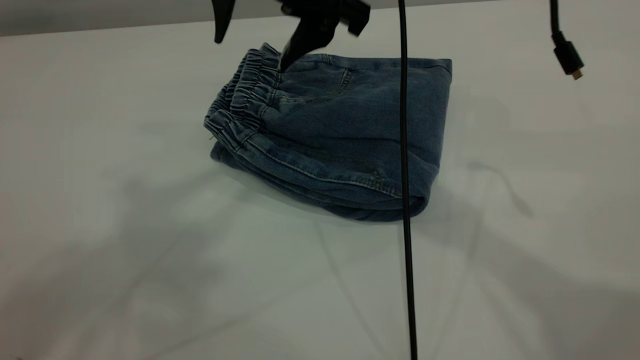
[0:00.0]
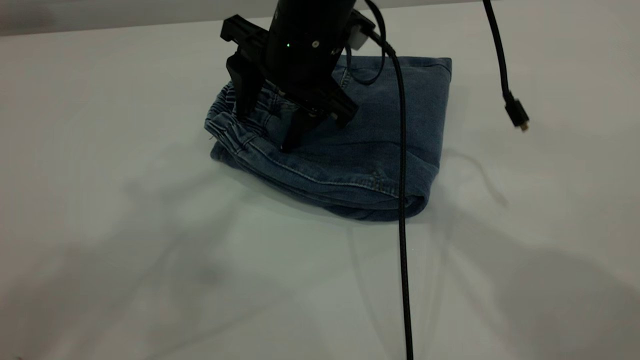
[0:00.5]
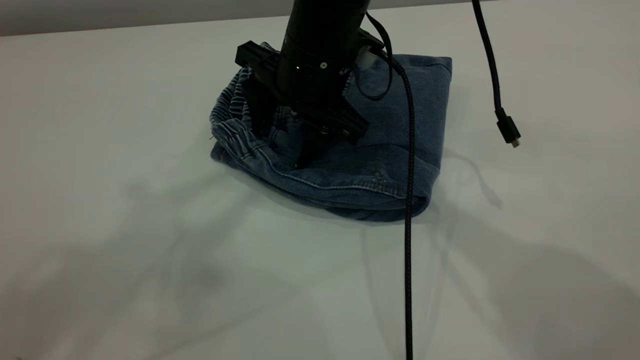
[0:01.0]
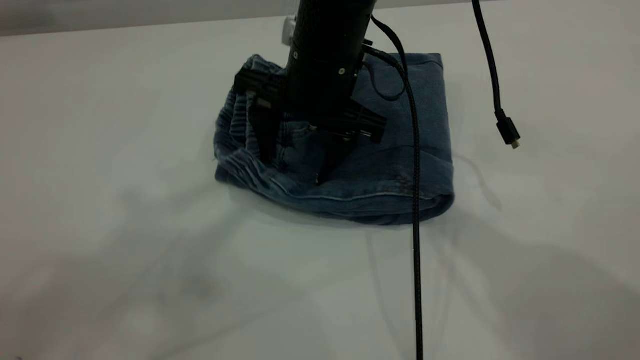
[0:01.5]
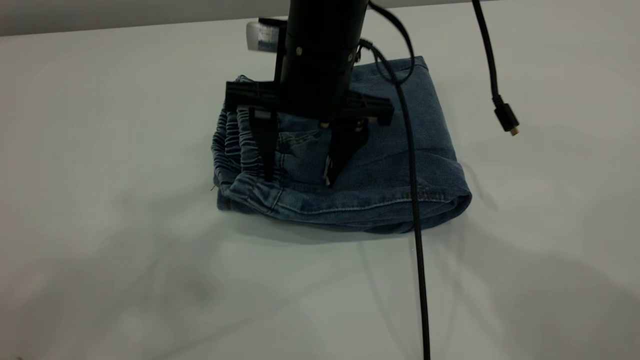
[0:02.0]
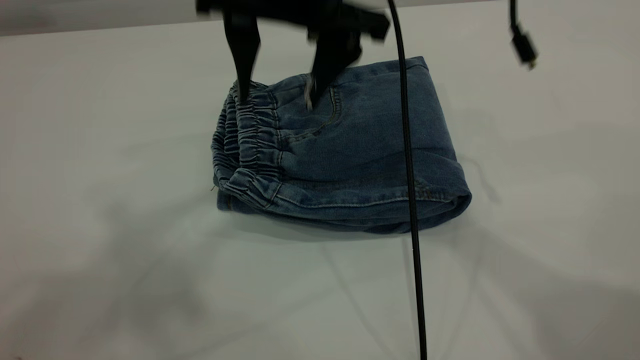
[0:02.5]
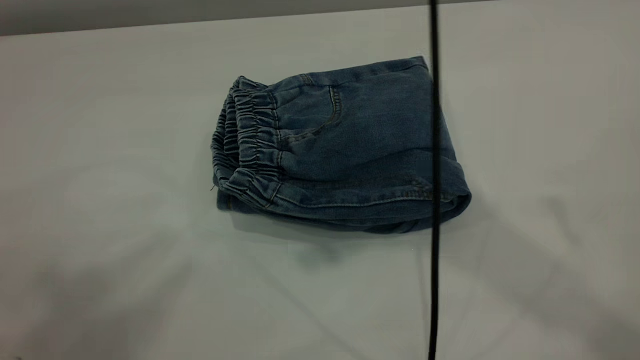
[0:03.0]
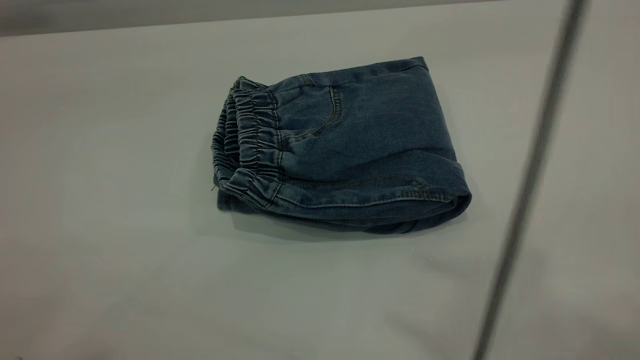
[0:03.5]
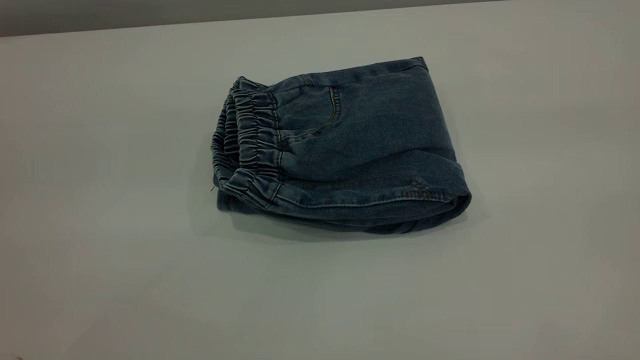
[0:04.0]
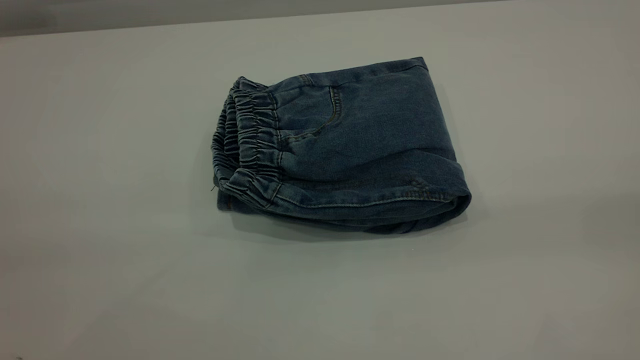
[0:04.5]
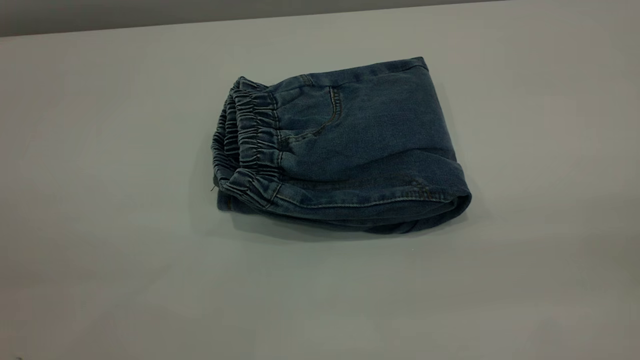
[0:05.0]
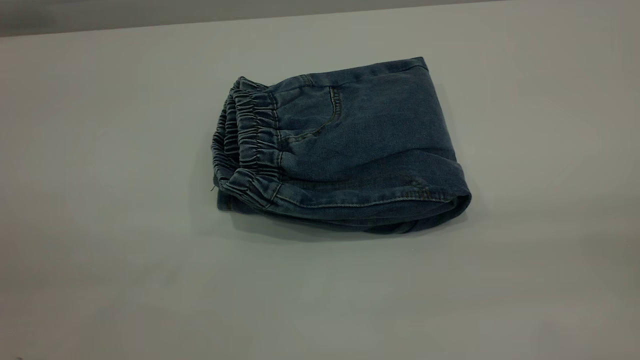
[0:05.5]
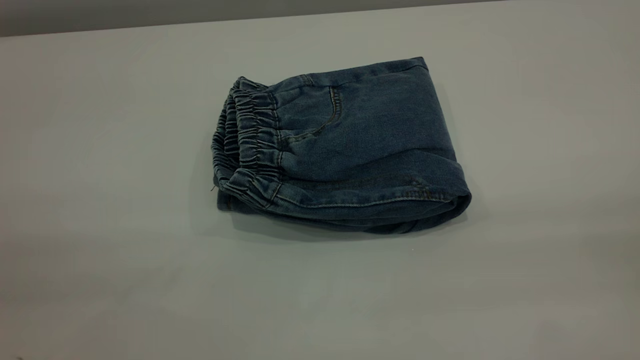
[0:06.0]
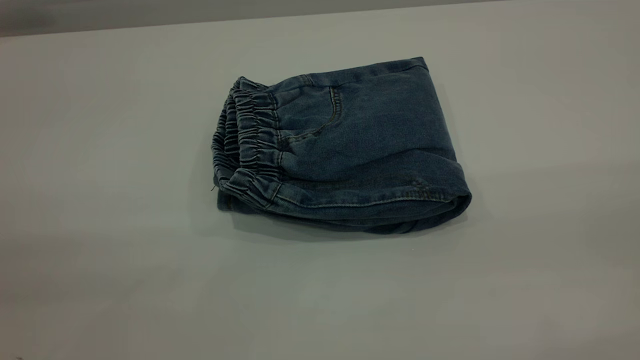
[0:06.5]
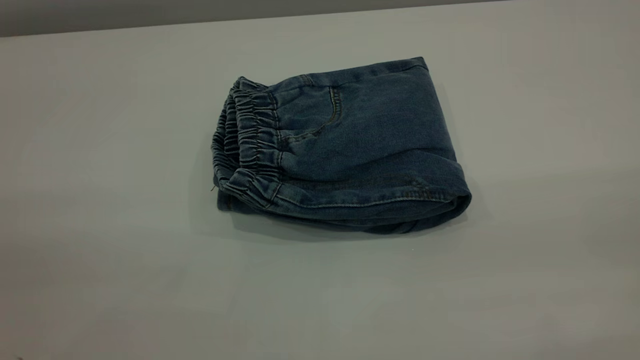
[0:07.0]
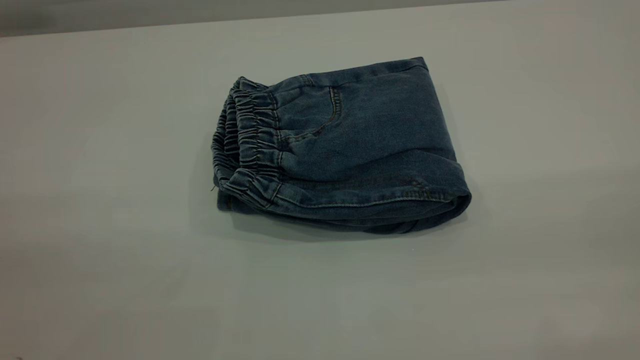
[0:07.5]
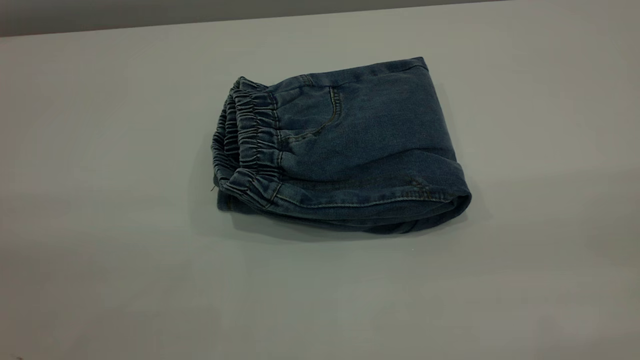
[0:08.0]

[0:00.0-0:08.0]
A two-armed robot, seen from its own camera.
0:00.0 to 0:02.0: The right gripper moves downward, about 5 cm.
0:02.0 to 0:04.0: The left gripper is displaced backward by roughly 20 cm. The right gripper moves upward, backward and to the right, approximately 60 cm.

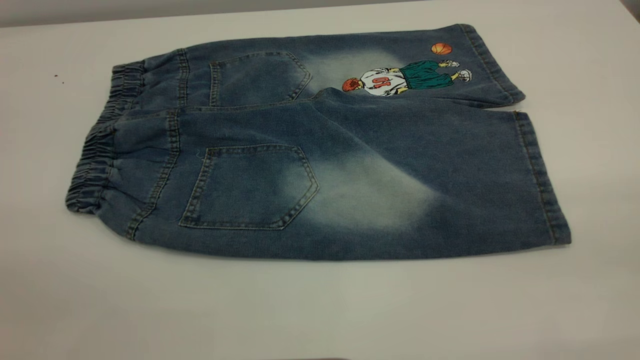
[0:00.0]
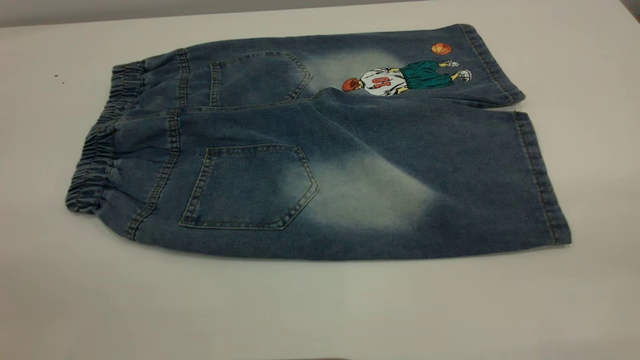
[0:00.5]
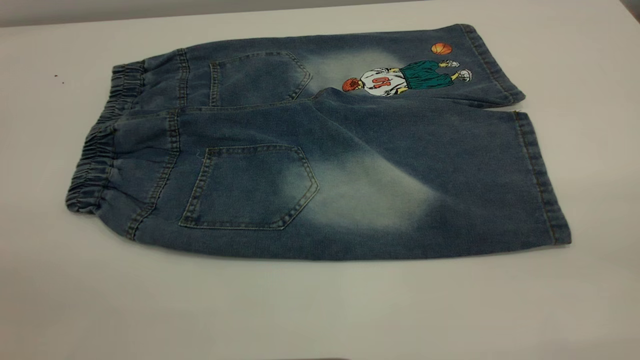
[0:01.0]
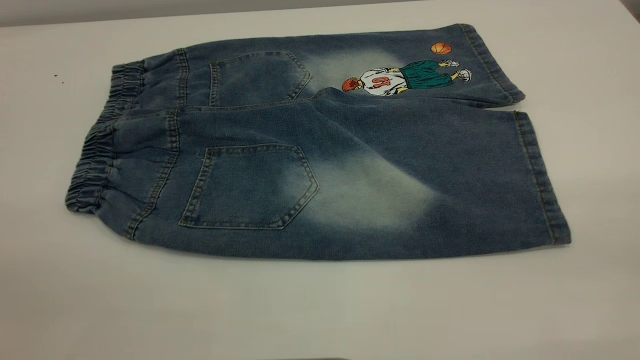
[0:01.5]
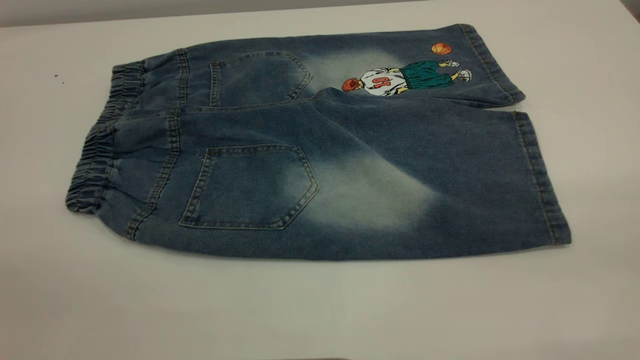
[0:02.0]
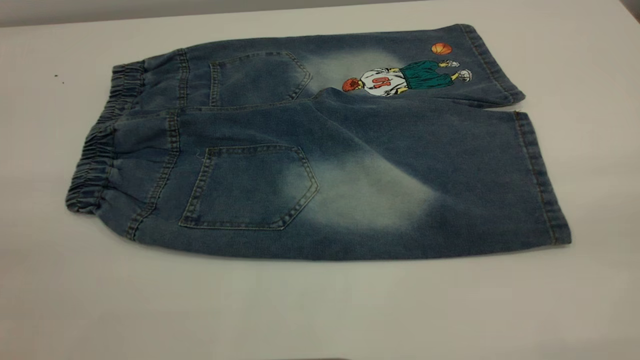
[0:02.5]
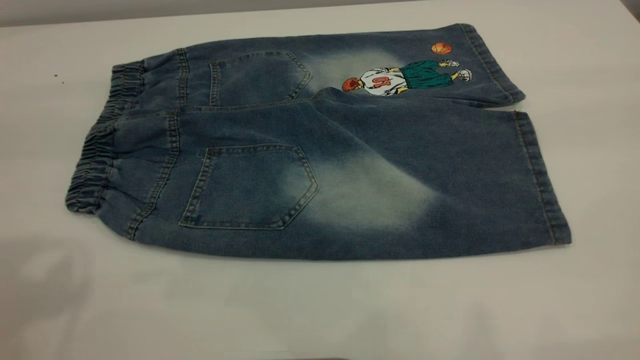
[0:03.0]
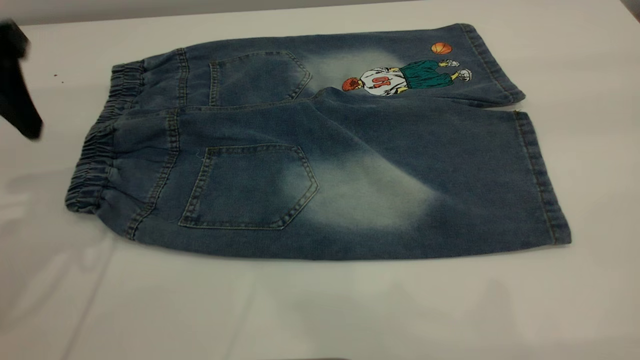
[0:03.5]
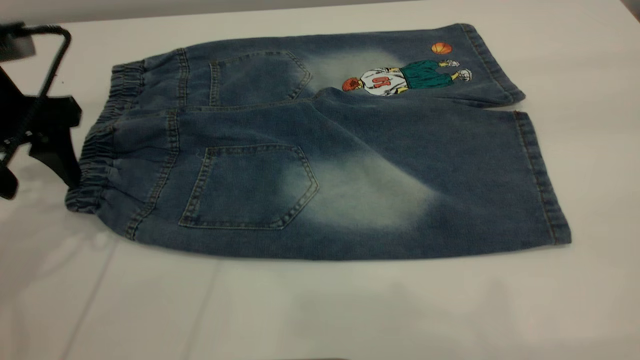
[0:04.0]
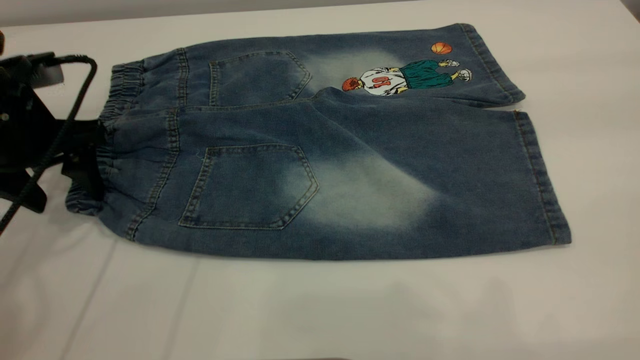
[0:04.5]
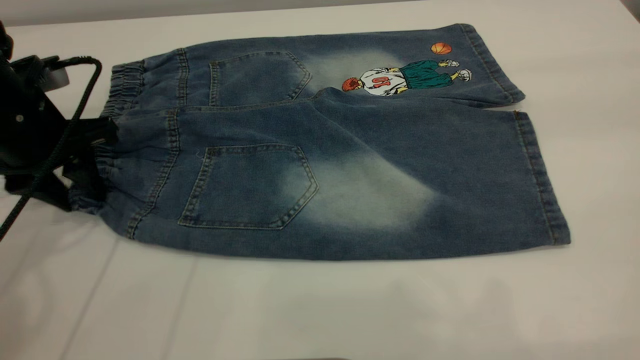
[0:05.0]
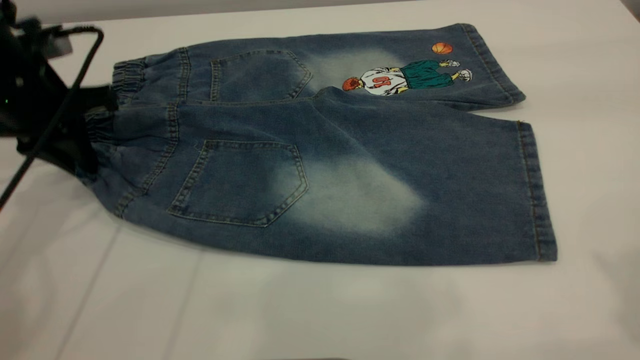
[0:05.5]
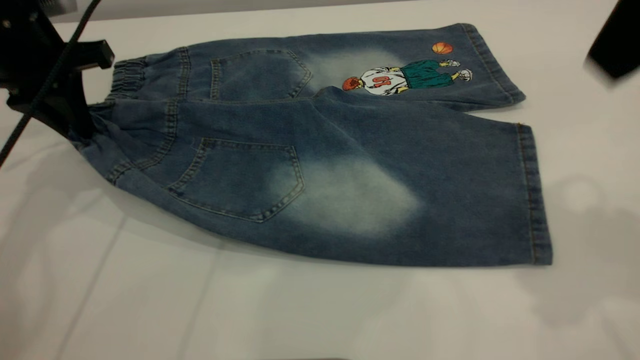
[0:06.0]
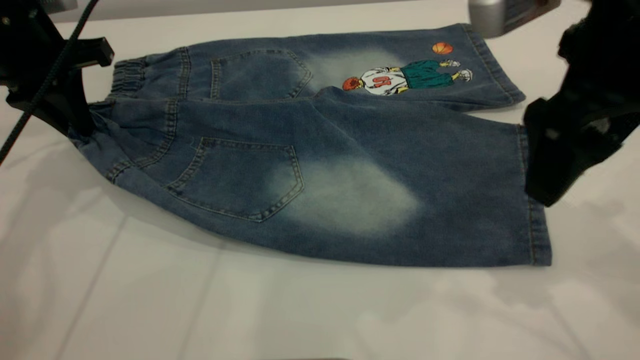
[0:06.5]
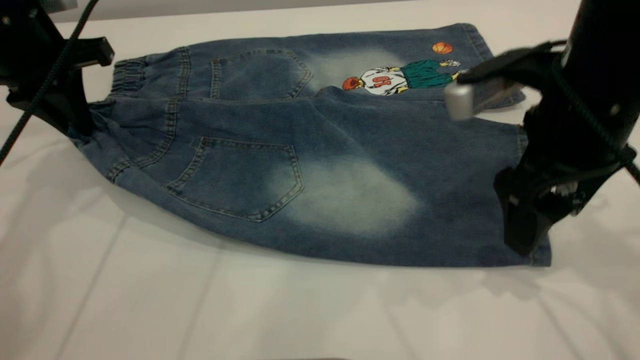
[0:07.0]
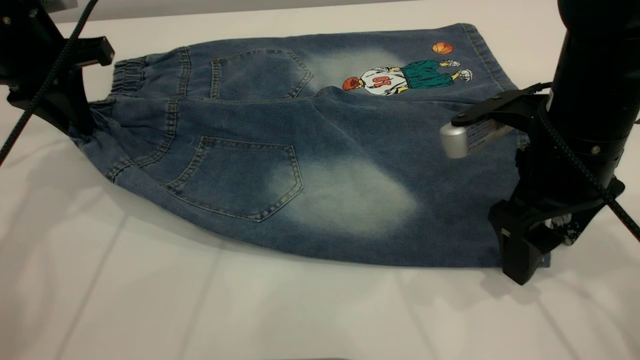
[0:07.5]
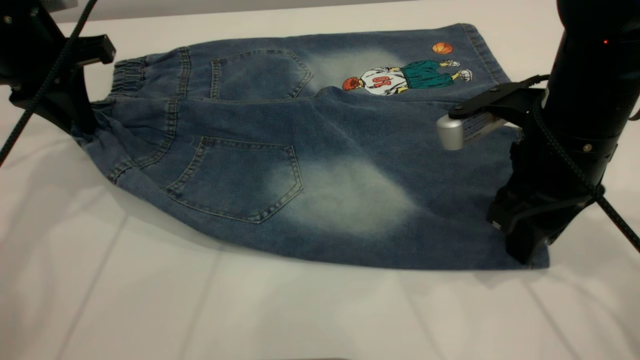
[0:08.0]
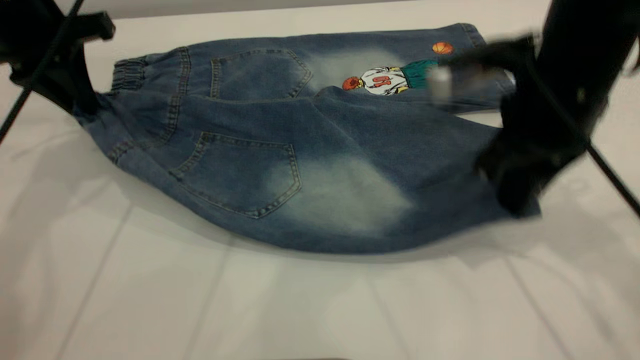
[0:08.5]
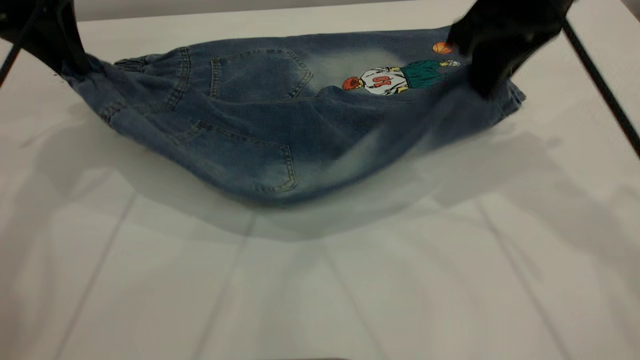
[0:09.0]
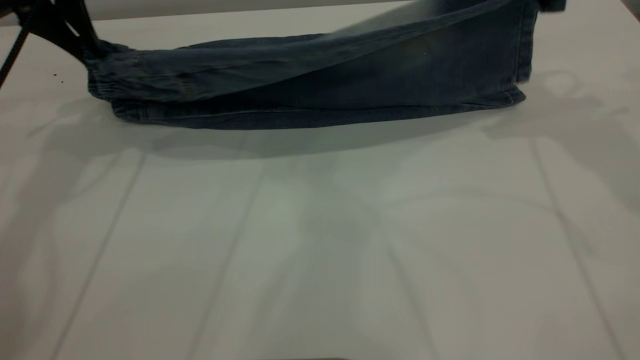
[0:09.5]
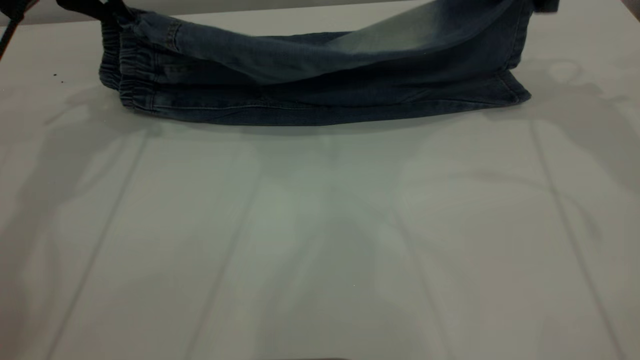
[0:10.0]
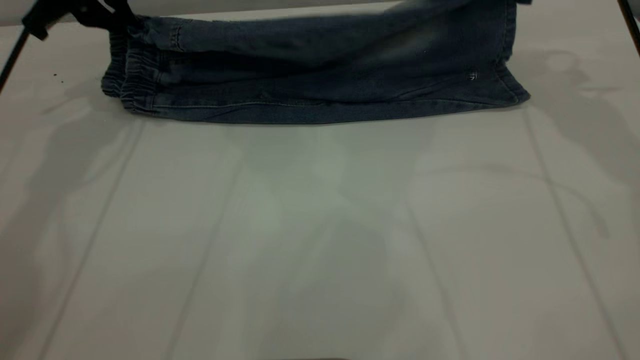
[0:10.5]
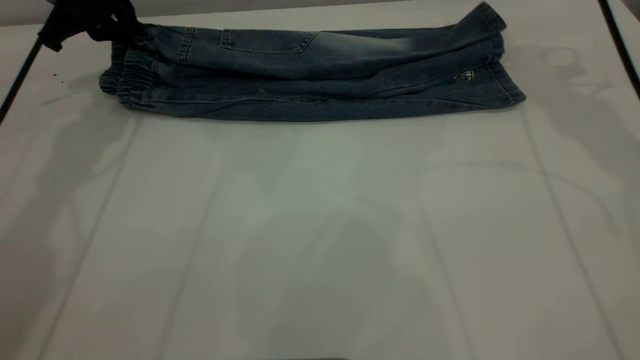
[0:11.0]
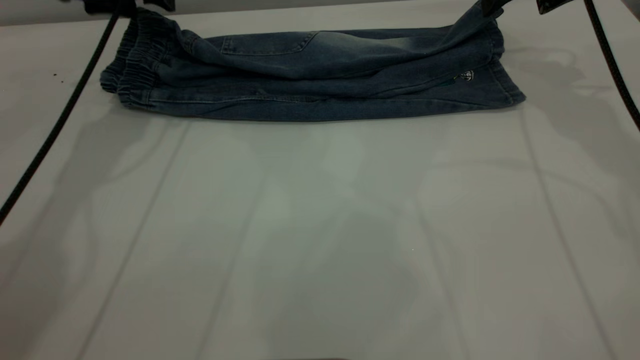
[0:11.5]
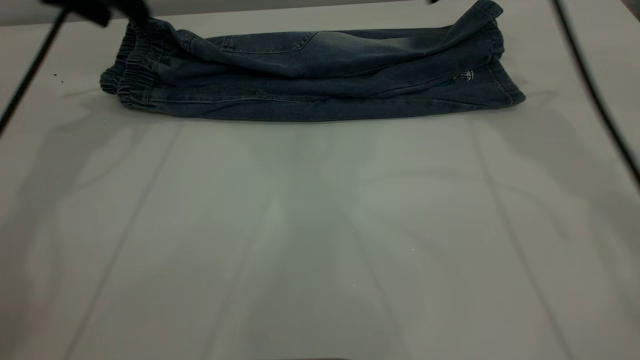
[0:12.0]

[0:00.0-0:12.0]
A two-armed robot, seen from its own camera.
Step, 0:00.0 to 0:11.5: Fold the bottom of the pants upward.
0:00.0 to 0:02.0: Both grippers stay about where they are.
0:02.0 to 0:04.0: The left gripper is displaced forward and downward by some 35 cm.
0:04.0 to 0:06.0: The left gripper travels forward by approximately 5 cm, and closes its fingers, while the right gripper is displaced forward, downward and to the left by approximately 15 cm.
0:06.0 to 0:08.0: The right gripper heads downward, covering some 20 cm, and closes up.
0:08.0 to 0:10.0: The left gripper travels forward and upward by about 10 cm. The right gripper goes approximately 20 cm forward, upward and to the right.
0:10.0 to 0:12.0: The left gripper opens. The right gripper is displaced to the left by roughly 10 cm, and opens its fingers.
